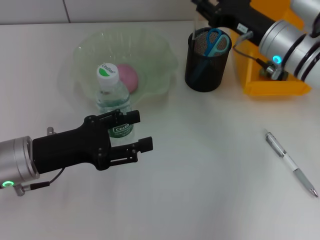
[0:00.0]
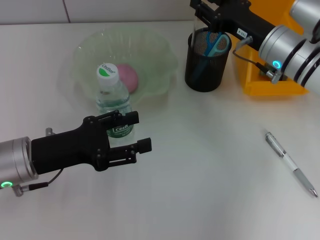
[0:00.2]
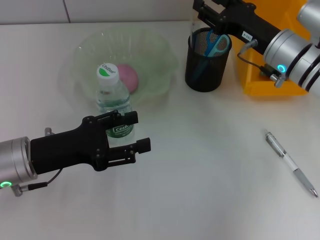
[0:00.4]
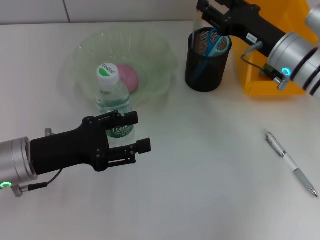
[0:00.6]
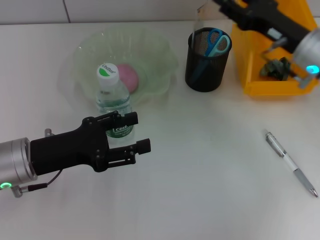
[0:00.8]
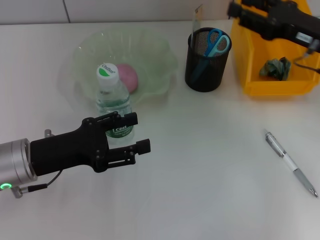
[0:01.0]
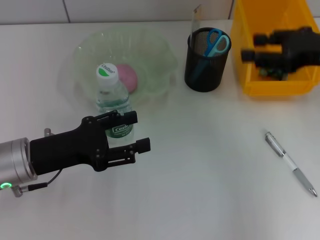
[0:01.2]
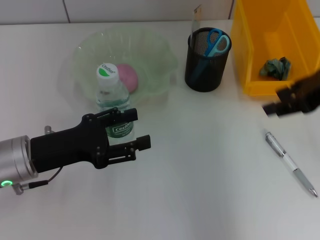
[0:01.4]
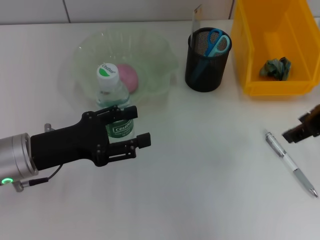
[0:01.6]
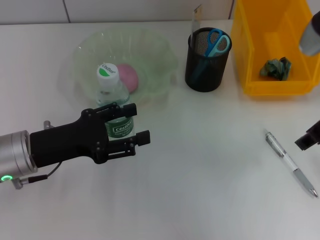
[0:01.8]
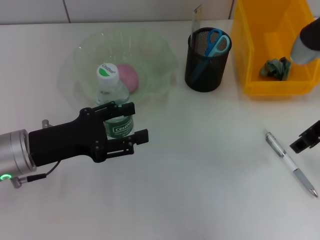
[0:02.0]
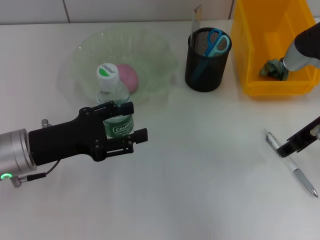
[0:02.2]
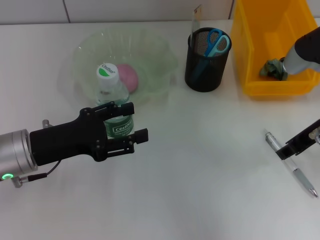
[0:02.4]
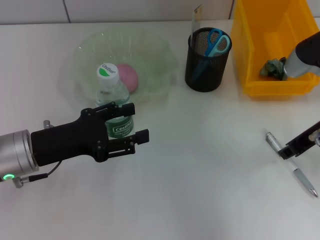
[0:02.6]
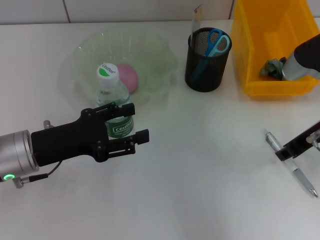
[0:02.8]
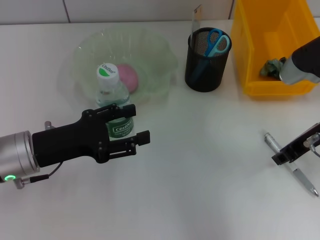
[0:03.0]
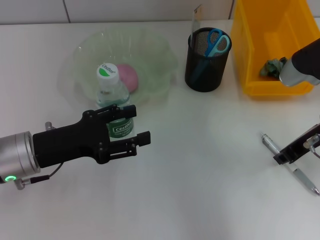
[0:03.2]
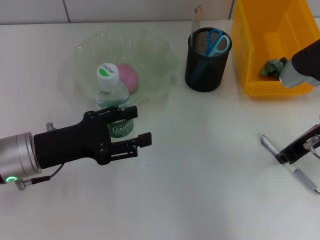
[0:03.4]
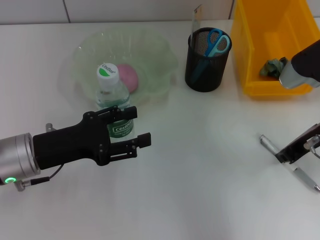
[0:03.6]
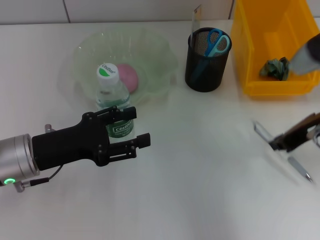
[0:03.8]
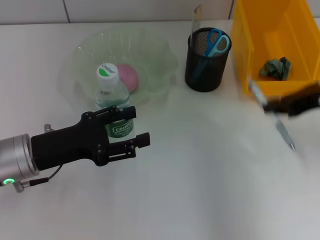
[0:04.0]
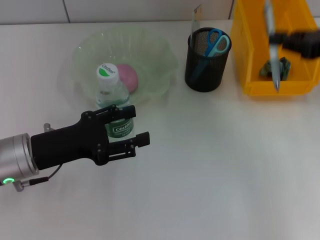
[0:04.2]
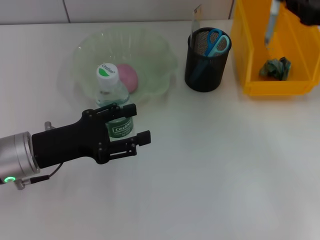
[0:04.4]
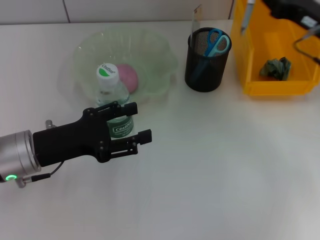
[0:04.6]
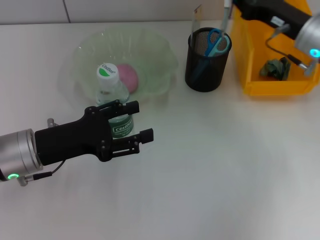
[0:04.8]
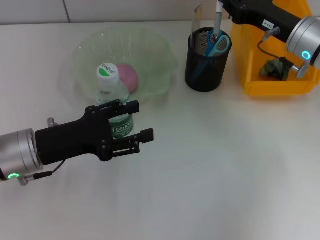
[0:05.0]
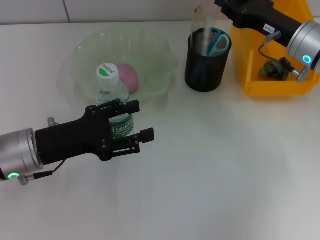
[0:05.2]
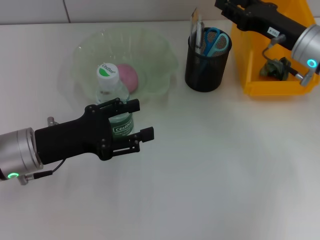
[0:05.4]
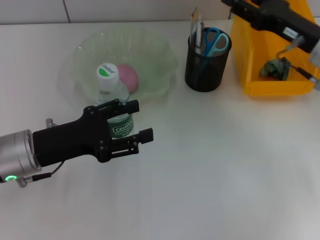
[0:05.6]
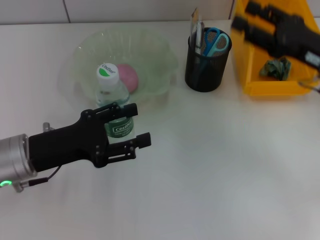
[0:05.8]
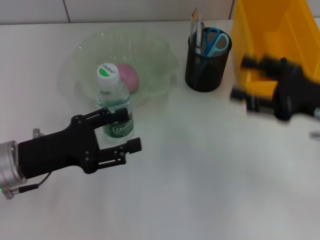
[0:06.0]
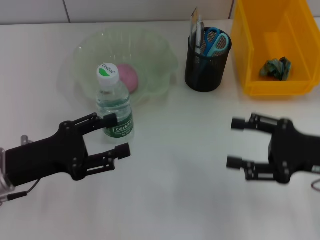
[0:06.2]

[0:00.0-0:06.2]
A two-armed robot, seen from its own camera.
Step, 0:01.0 to 0:03.4: Grab the gray spring-action pen with the right hand.
Step, 0:03.6 to 0:05.2: Place the gray spring-action pen into the pen holder with the right hand.
0:00.0 to 0:01.6: The right gripper heads upward, backward and to the right, covering roughly 15 cm.
0:01.6 to 0:03.2: The right gripper shifts about 10 cm downward.
0:03.2 to 0:04.6: The right gripper shifts some 5 cm forward.
0:04.6 to 0:06.2: The right gripper goes about 15 cm backward, and opens its fingers.
